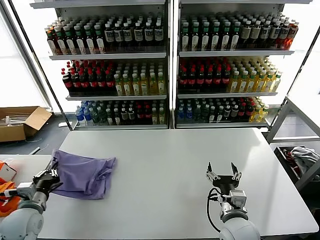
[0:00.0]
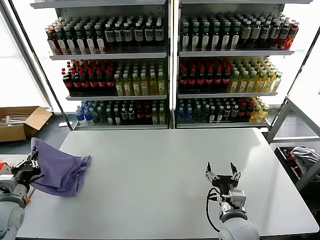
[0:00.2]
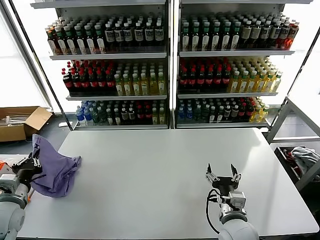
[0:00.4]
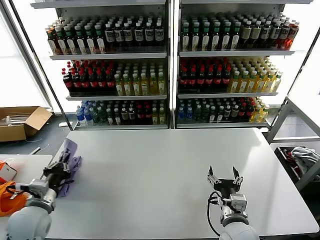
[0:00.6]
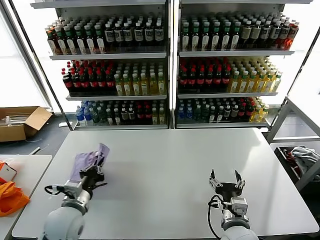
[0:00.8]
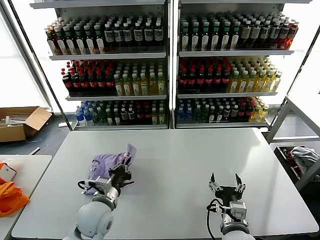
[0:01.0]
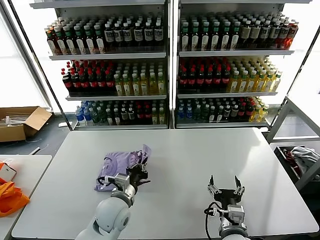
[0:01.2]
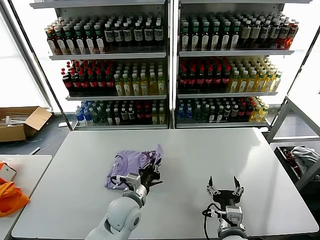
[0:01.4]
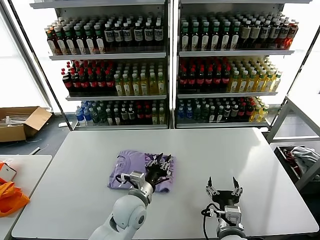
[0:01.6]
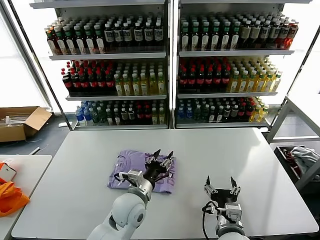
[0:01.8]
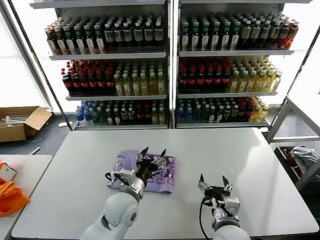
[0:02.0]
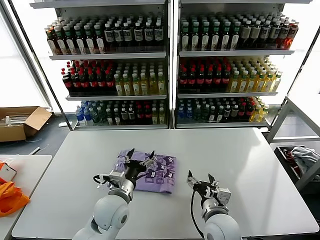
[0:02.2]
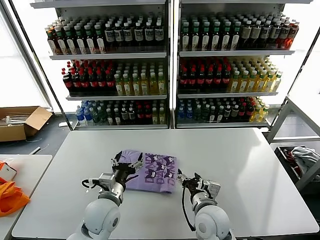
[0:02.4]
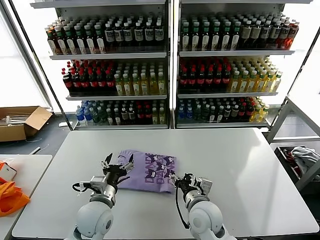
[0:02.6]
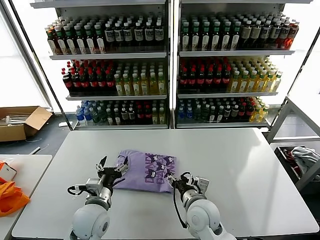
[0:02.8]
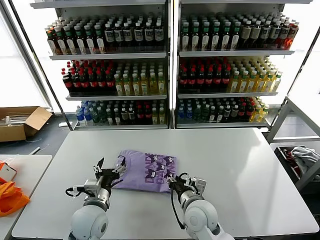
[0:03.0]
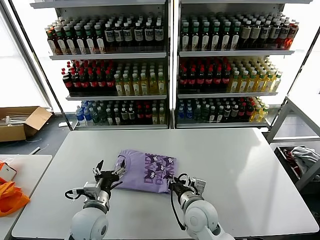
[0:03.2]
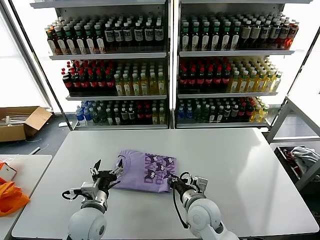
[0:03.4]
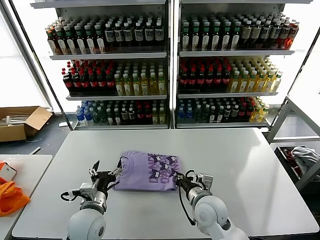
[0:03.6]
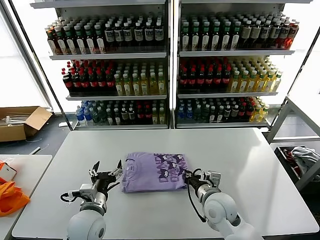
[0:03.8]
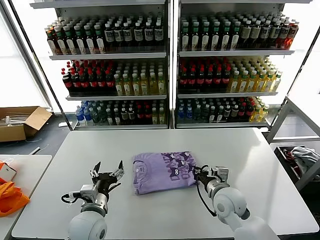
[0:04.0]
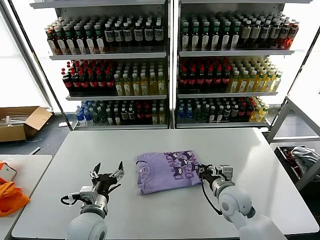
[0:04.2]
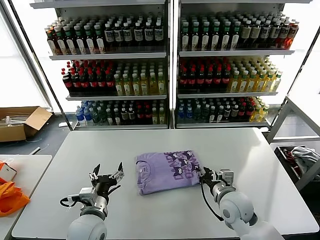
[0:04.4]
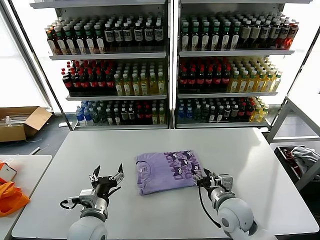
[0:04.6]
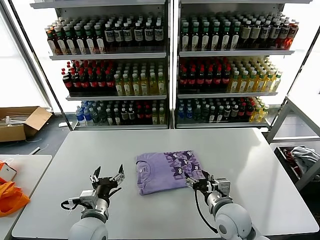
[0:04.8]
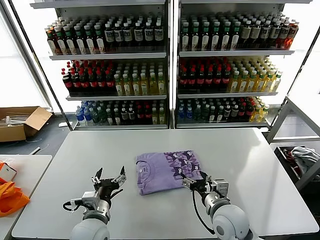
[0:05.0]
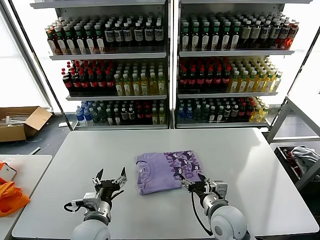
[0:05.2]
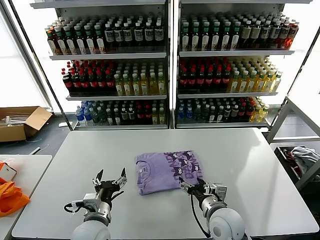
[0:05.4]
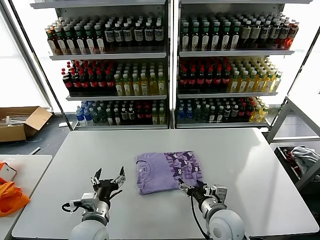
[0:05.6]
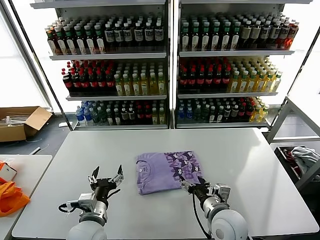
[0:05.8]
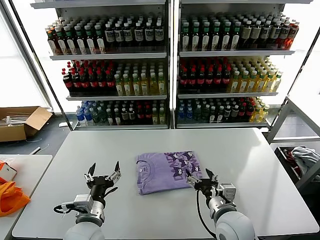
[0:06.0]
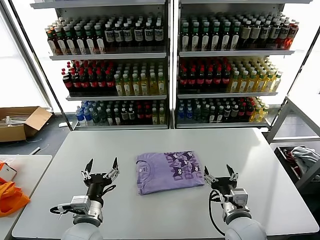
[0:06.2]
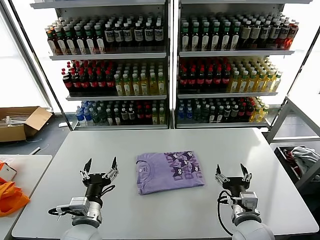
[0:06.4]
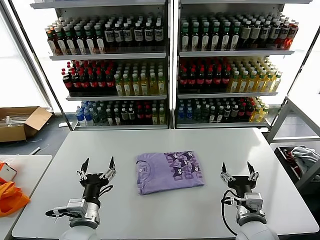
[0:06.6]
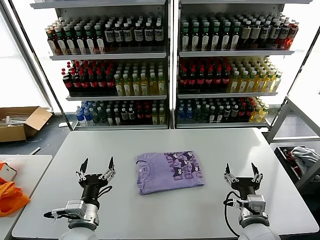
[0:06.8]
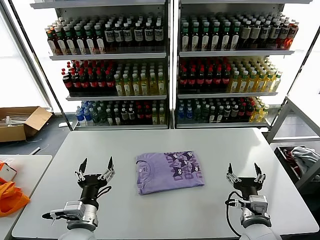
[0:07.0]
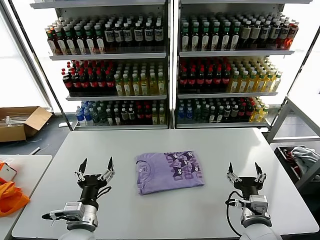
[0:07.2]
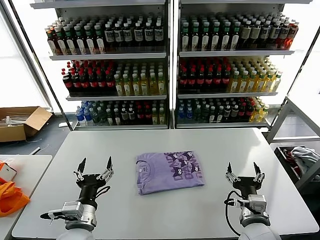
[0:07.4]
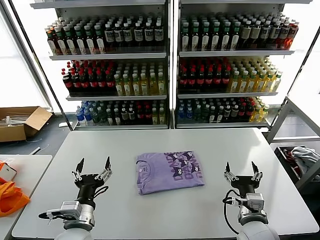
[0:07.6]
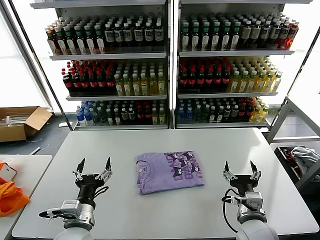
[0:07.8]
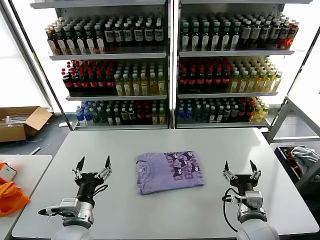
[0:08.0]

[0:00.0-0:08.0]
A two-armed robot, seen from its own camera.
Task of the whole recording: fold and organize the clothes.
Step, 0:01.8 to 0:05.8: Drag the clothes to the center of the table.
0:00.0 to 0:01.6: The left gripper goes some 30 cm to the right.
0:01.6 to 0:03.2: The right gripper shifts approximately 10 cm forward and to the left, and closes up; the left gripper travels to the left by roughly 10 cm, and opens up.
0:03.2 to 0:04.8: The right gripper goes roughly 10 cm to the right, and opens its fingers.
0:04.8 to 0:06.4: The right gripper changes place by roughly 5 cm.
0:06.4 to 0:08.0: There are only small adjustments of the grippers.
